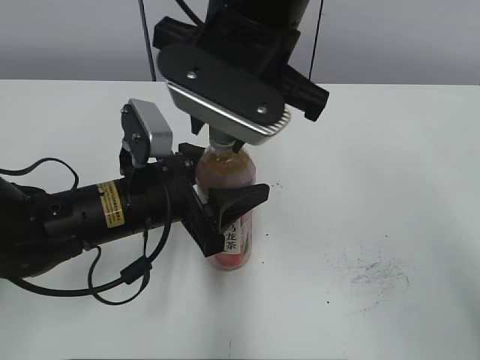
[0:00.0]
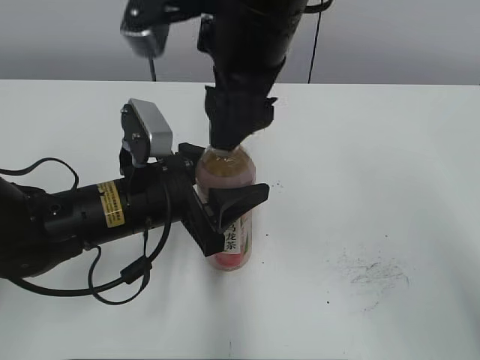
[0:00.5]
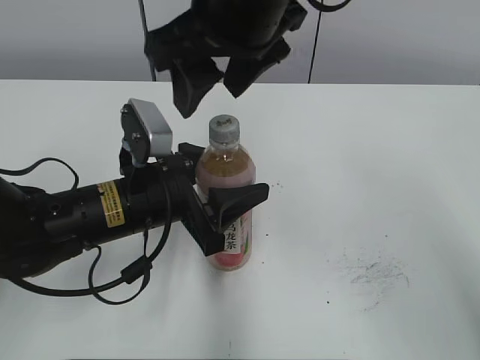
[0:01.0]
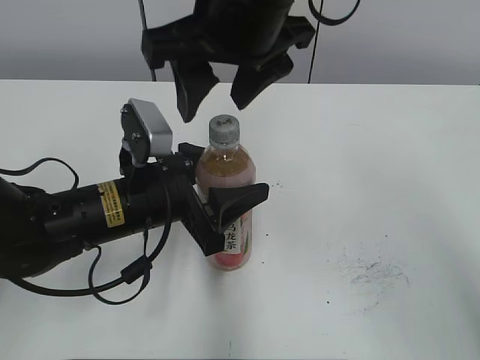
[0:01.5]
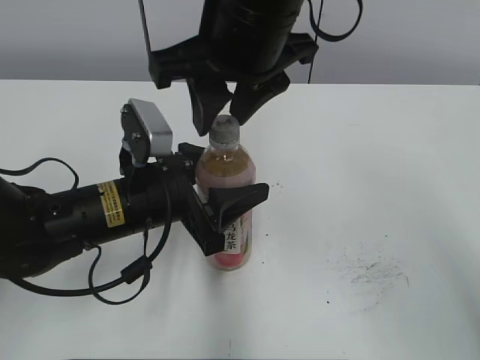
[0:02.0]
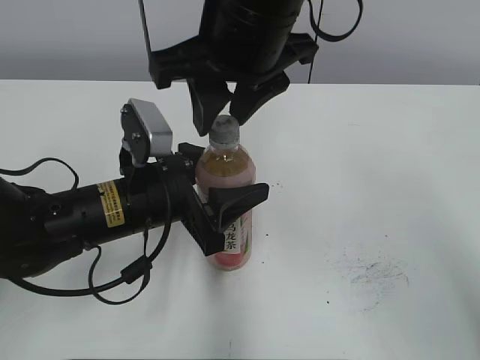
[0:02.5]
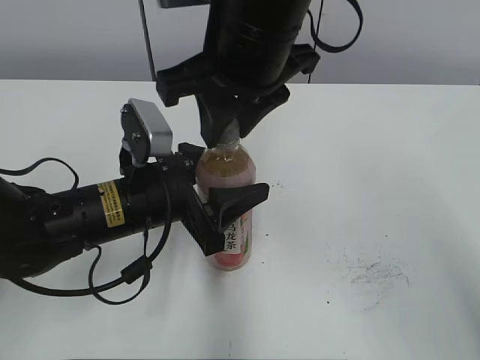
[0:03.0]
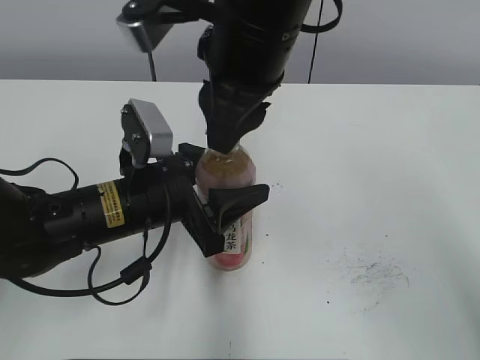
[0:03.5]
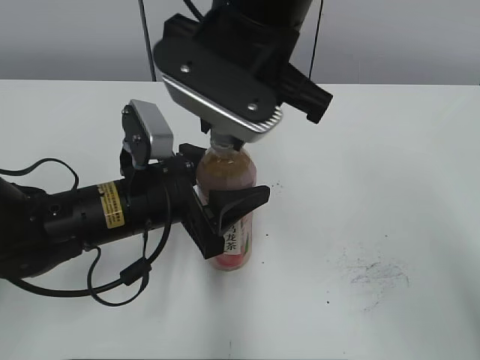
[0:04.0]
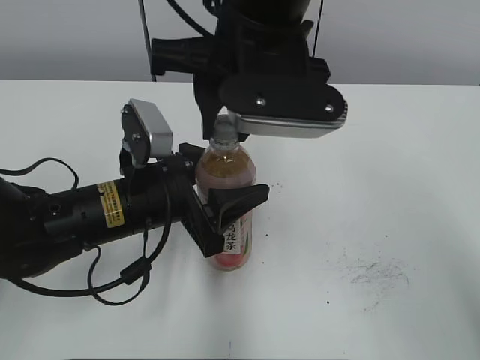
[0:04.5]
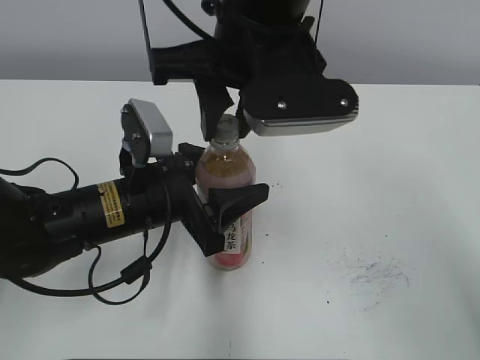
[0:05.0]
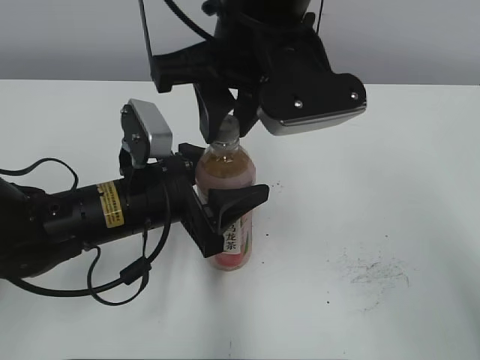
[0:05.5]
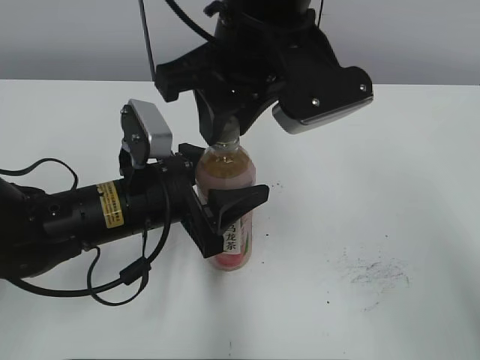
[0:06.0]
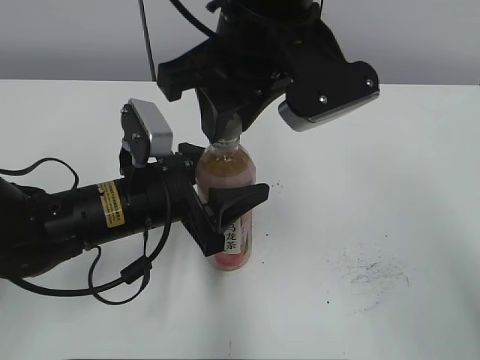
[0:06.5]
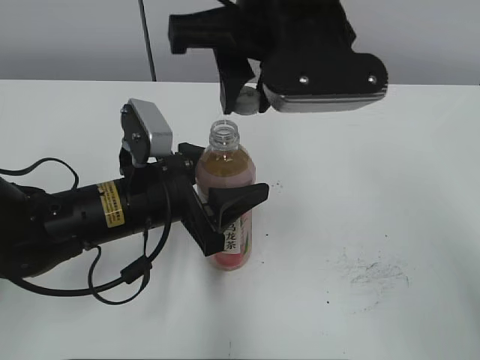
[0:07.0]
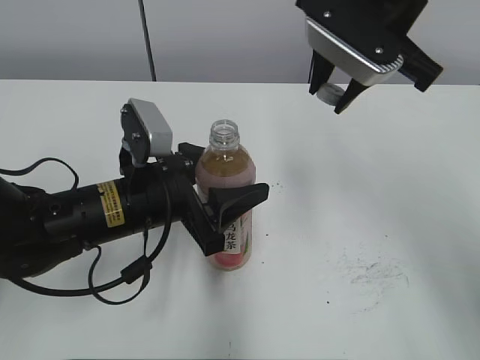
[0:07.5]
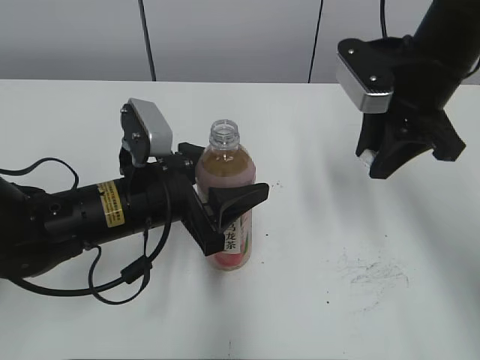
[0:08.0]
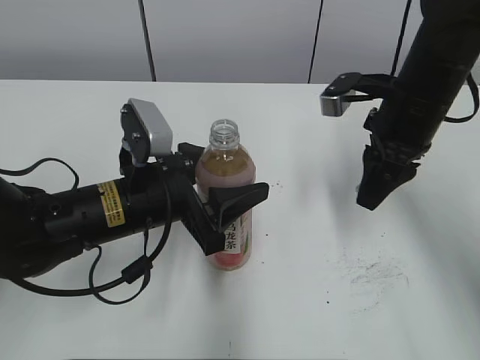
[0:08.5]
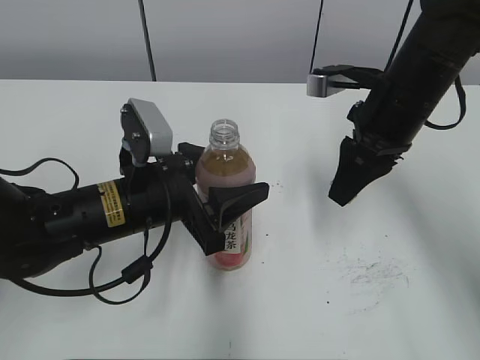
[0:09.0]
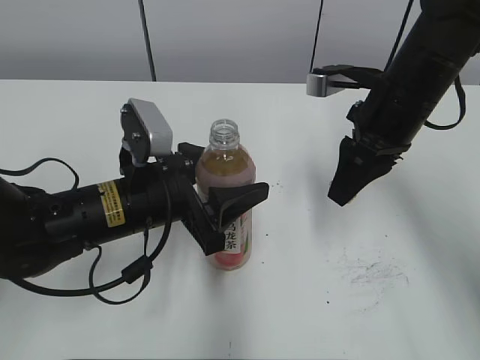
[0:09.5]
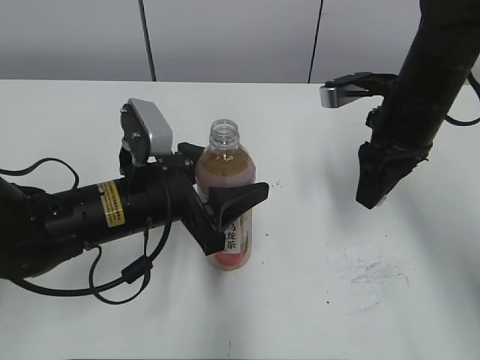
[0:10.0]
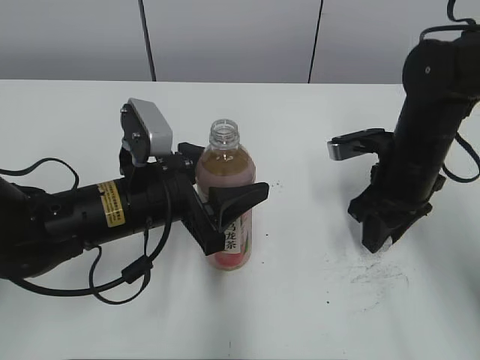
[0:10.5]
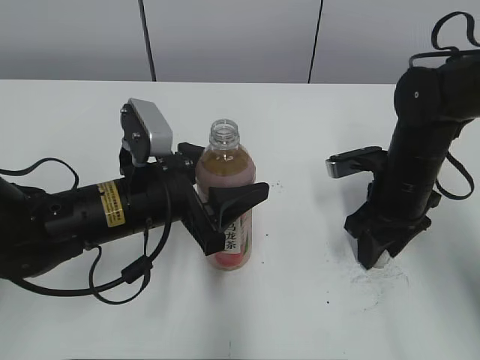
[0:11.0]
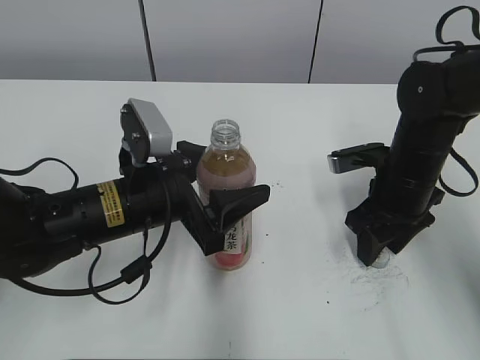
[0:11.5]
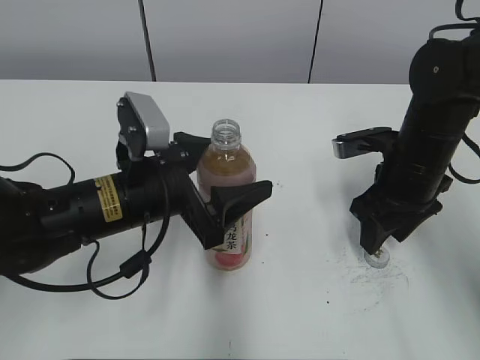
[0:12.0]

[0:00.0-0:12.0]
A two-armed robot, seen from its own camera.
Step, 0:07.0 to 0:11.0: Place the bottle cap on the right.
0:00.0 to 0:02.0: The right gripper opens and closes again.
0:06.0 to 0:08.0: The right gripper shifts some 15 cm to the right.
0:10.0 to 0:12.0: The left gripper opens. The right gripper heads downward, covering roughly 5 cm, and opens its fingers.

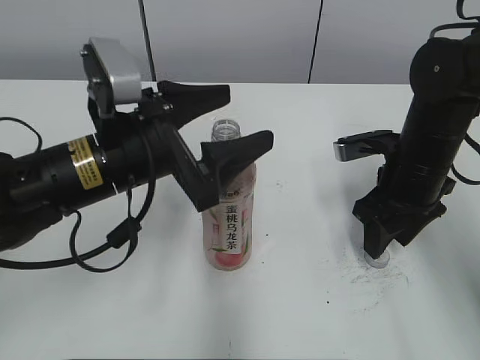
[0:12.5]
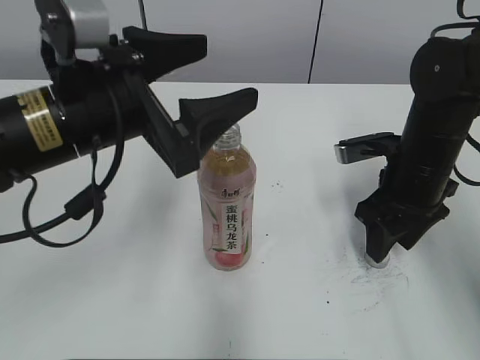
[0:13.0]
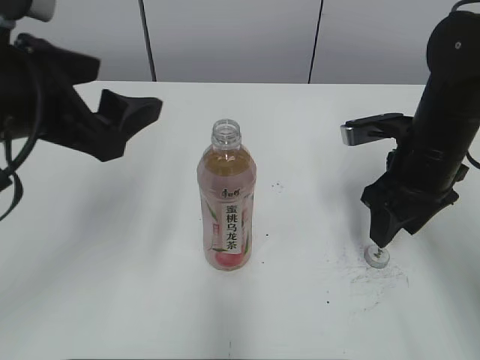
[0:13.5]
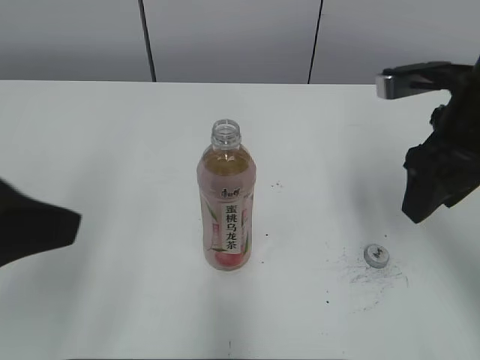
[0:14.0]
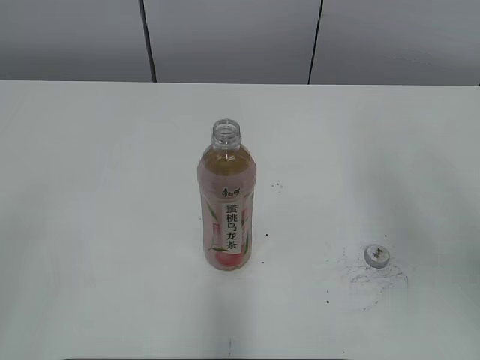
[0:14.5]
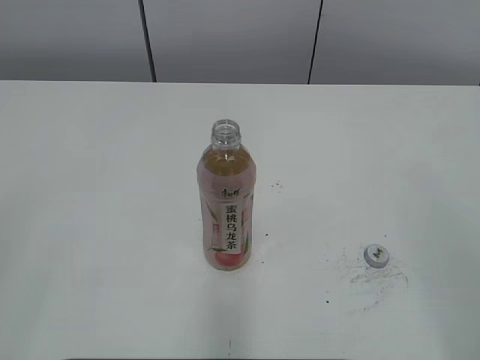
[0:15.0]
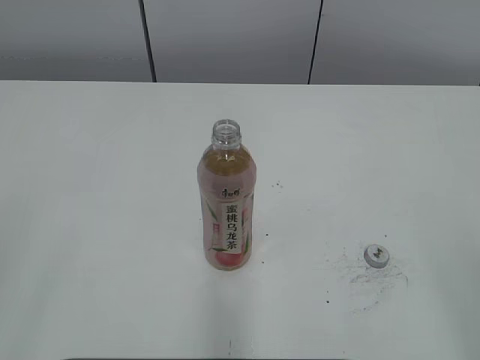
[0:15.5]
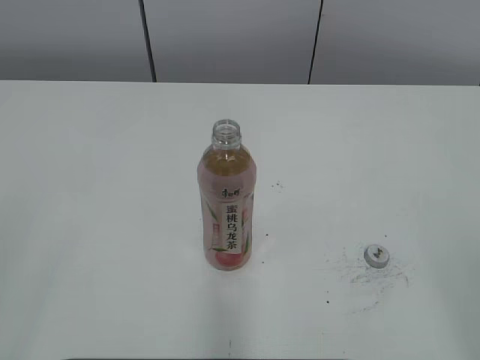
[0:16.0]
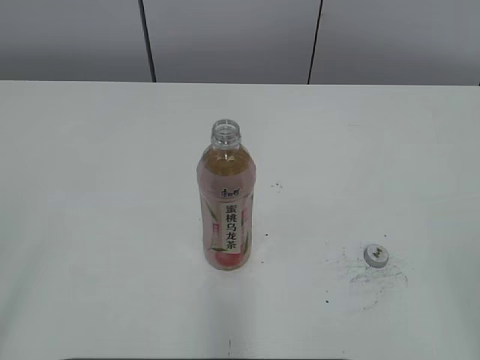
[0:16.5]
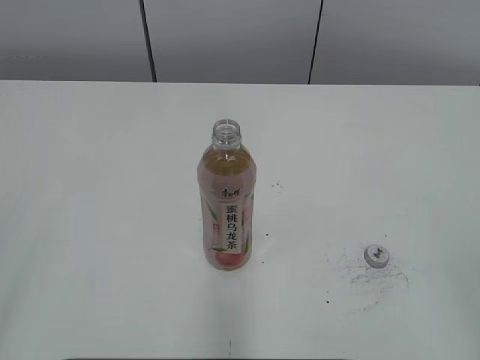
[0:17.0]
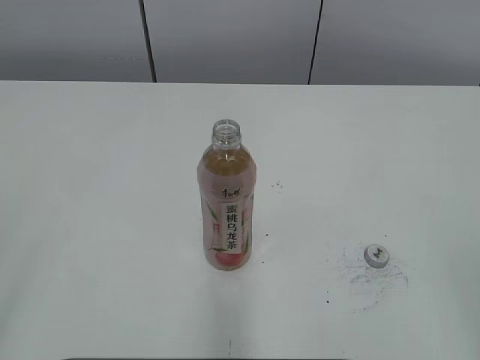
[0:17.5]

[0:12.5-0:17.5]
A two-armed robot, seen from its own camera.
0:12.5 to 0:15.0: The right gripper shifts roughly 35 cm backward and upward; the left gripper travels backward, to the left and upward by some 35 cm.
